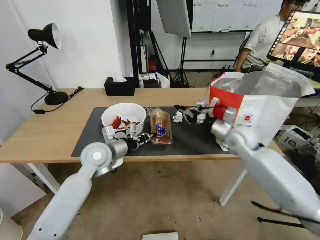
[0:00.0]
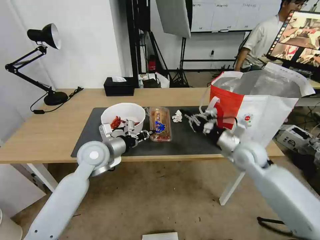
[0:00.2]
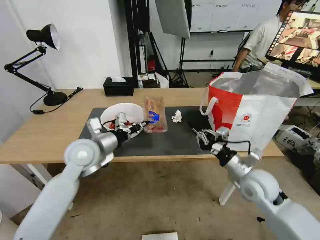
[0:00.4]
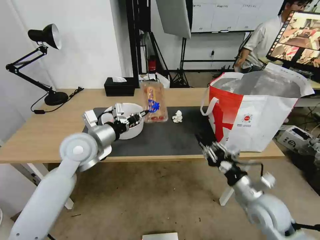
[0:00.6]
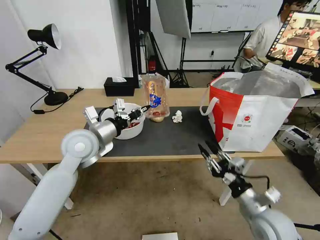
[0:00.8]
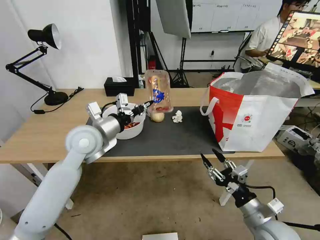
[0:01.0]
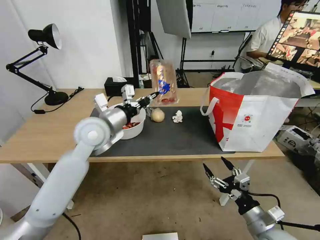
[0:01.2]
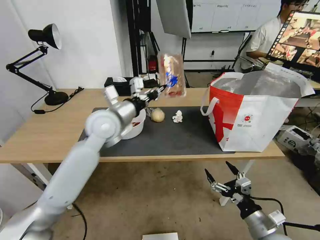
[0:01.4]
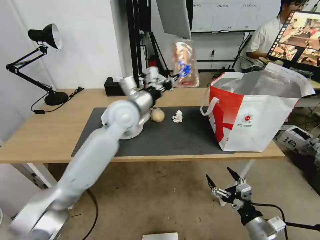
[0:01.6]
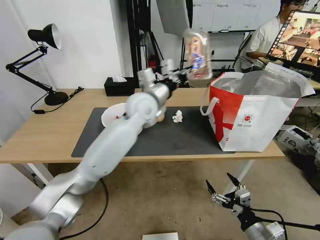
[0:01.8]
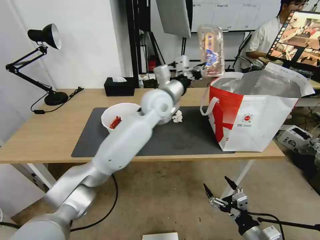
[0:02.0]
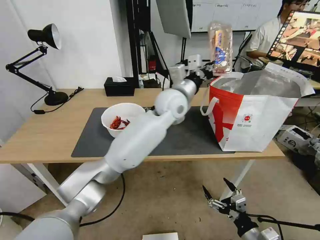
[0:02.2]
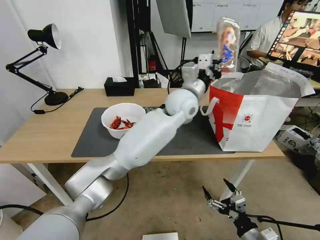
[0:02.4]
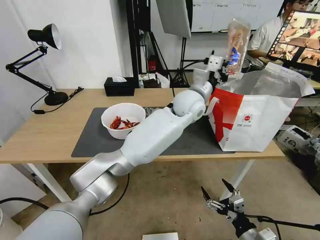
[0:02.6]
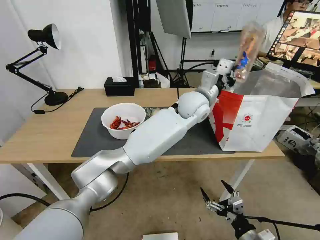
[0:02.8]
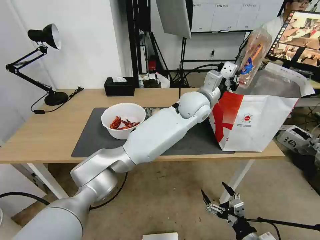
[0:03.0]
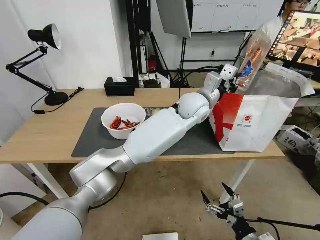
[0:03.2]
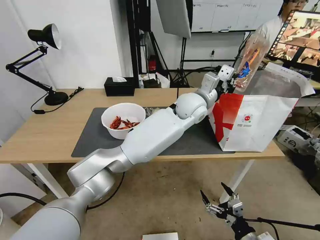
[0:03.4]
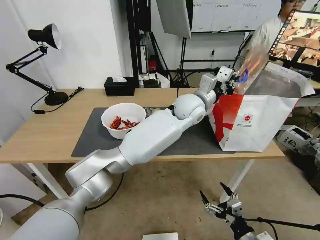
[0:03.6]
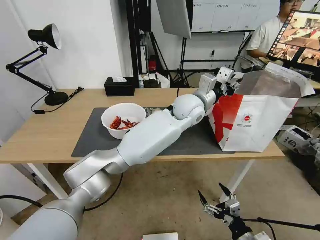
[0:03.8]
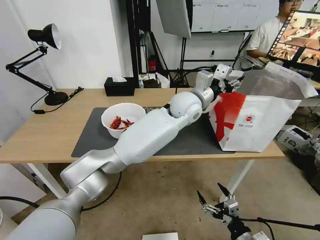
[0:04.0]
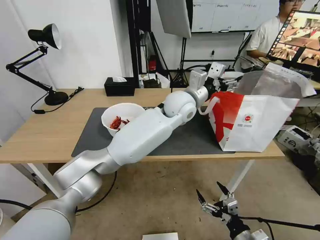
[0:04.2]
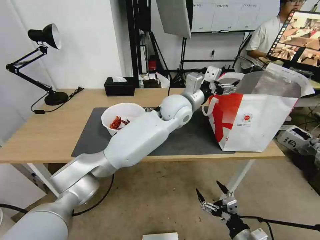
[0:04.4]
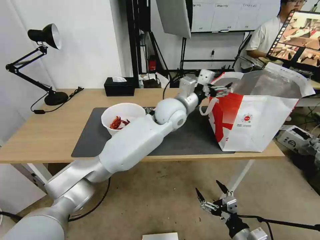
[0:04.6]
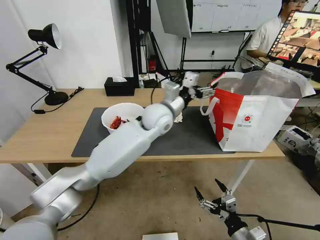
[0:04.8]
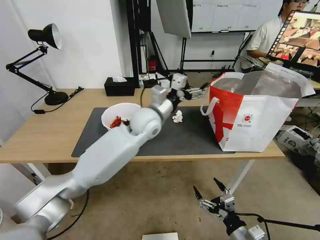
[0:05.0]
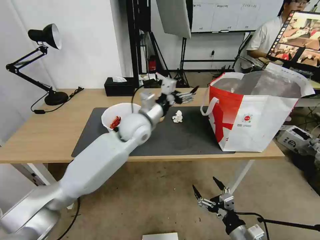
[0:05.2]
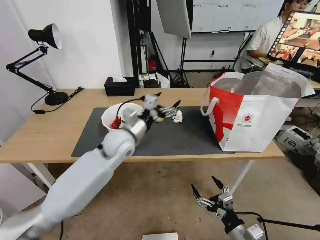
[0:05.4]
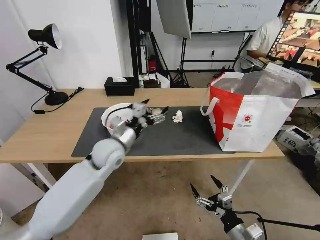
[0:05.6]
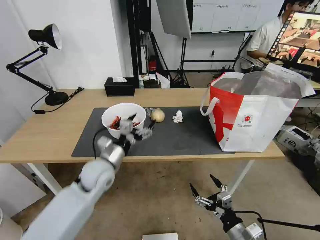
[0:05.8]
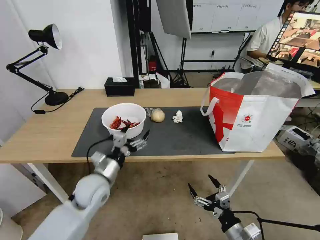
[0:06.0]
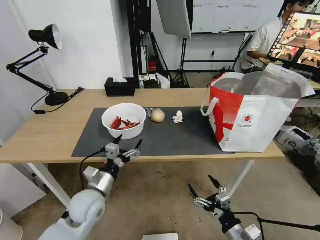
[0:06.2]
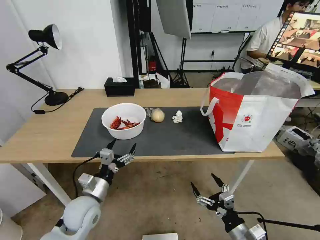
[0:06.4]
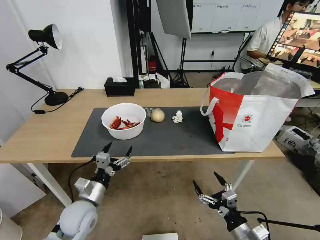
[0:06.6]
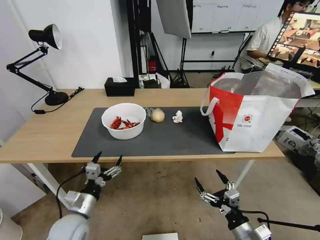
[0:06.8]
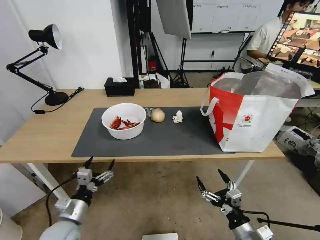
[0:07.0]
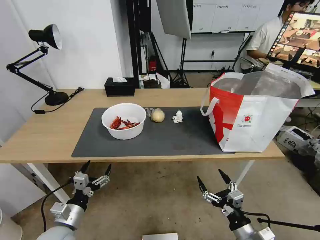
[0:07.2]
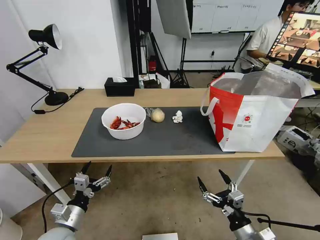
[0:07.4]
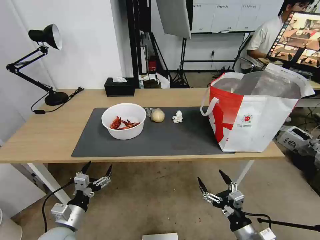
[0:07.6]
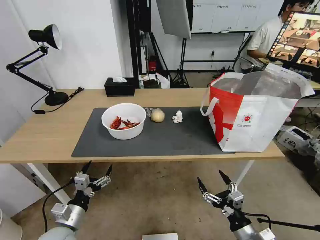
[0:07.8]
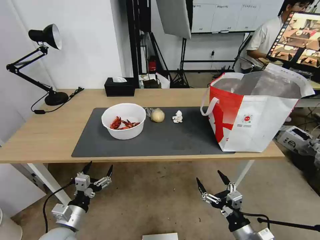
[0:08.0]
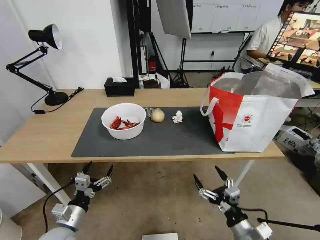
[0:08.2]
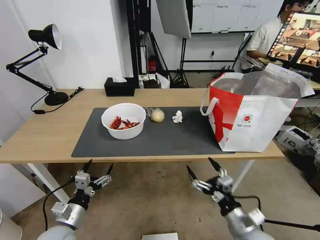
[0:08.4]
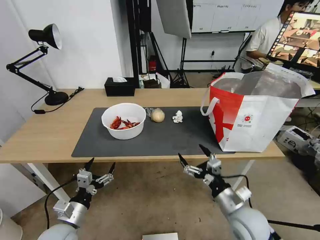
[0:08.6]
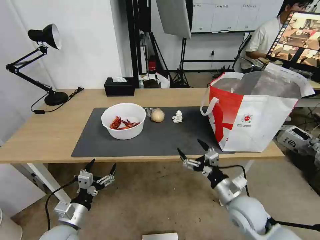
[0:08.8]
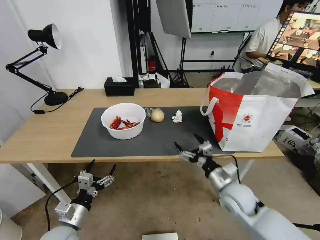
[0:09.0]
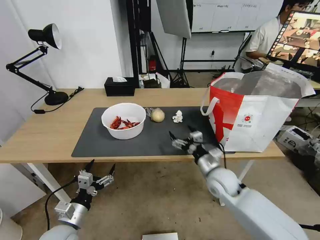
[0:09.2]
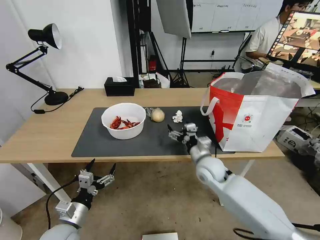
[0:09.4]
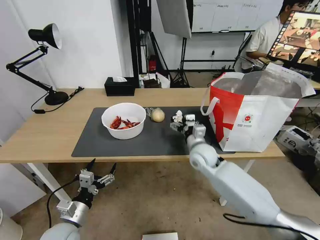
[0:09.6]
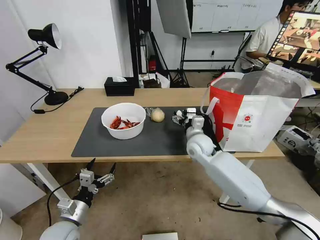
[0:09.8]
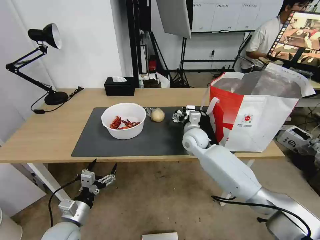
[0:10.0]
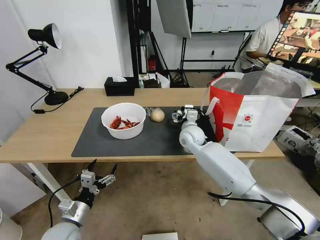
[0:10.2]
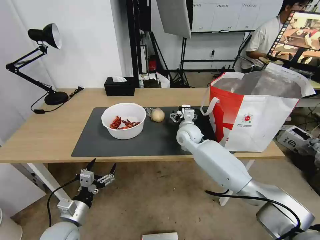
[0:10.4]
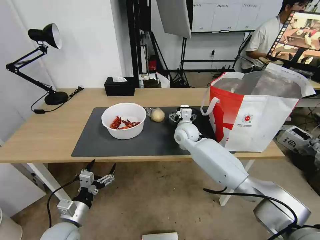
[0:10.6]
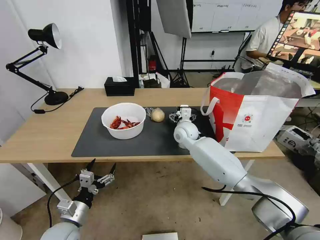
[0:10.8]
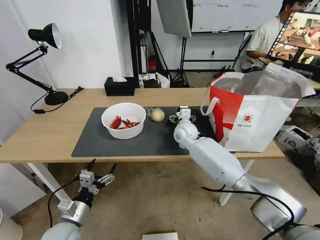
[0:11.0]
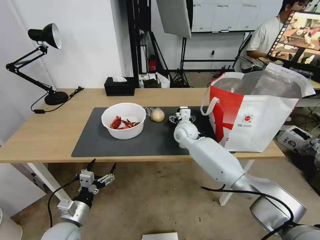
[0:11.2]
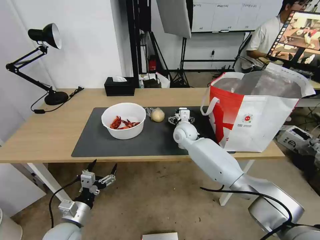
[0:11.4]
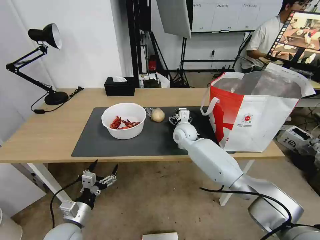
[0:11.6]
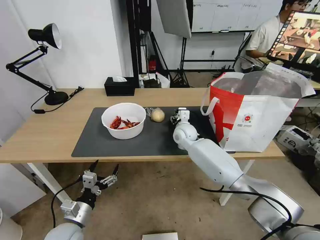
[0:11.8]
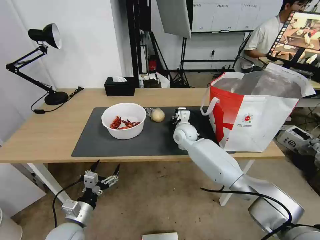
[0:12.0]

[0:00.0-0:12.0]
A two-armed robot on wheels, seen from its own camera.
Task of the whole recording: Pick up the trash from the table and place it into the takeout bag.
0:00.0 to 0:01.6: The left gripper heads upward, to the right and forward, covering approximately 15 cm; the right gripper travels backward and downward by some 35 cm, and opens its fingers.
0:01.6 to 0:03.0: The left gripper shifts about 20 cm to the right.
0:03.0 to 0:04.4: The left gripper shifts about 5 cm to the left, and opens its fingers.
0:04.4 to 0:06.0: The left gripper moves to the left, backward and downward, about 35 cm.
0:06.0 to 0:07.6: The left gripper heads backward, to the left and downward, covering some 20 cm.
0:07.6 to 0:09.0: The right gripper moves forward, approximately 15 cm.
0:09.0 to 0:10.4: The right gripper heads forward and to the left, covering some 25 cm.
0:10.4 to 0:12.0: The right gripper closes.

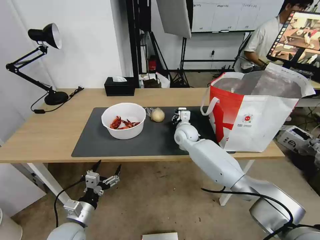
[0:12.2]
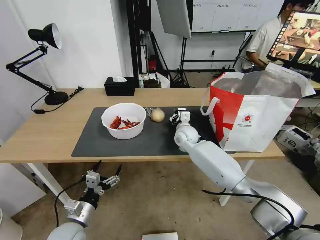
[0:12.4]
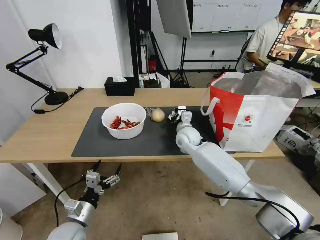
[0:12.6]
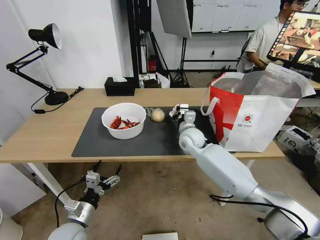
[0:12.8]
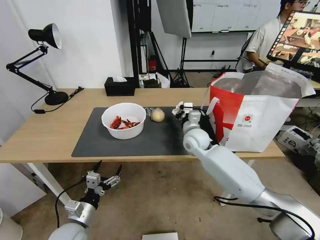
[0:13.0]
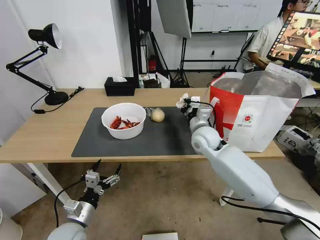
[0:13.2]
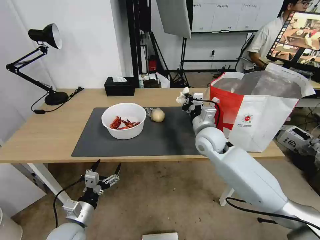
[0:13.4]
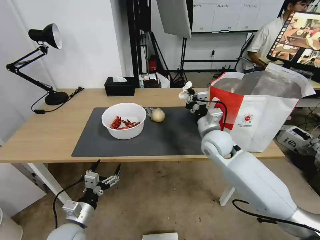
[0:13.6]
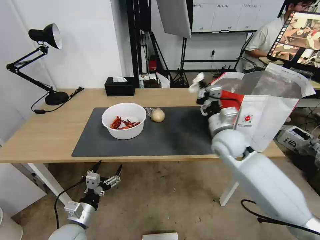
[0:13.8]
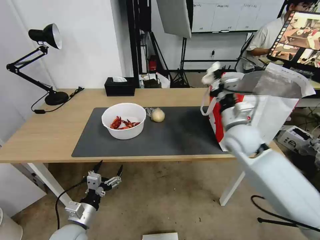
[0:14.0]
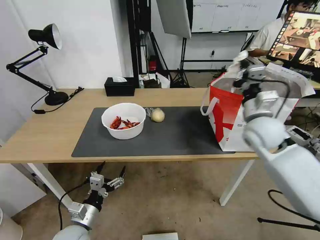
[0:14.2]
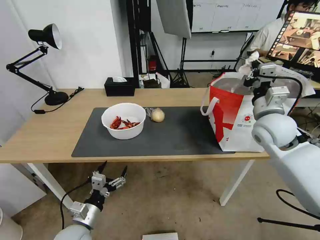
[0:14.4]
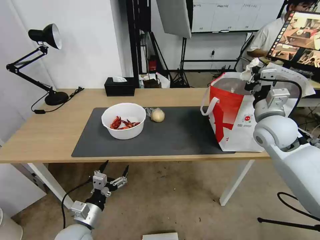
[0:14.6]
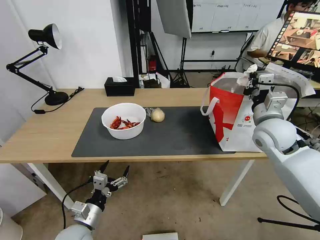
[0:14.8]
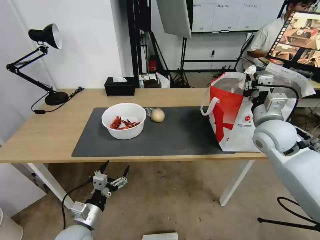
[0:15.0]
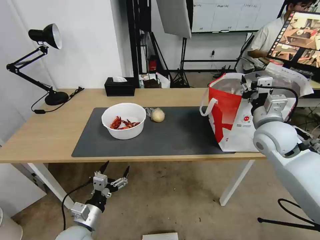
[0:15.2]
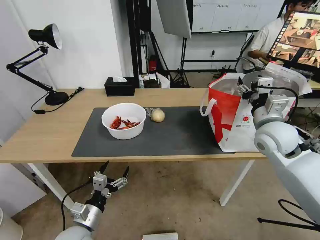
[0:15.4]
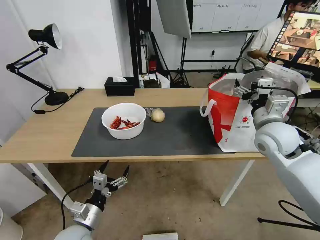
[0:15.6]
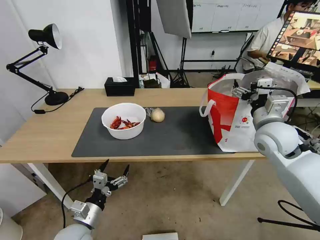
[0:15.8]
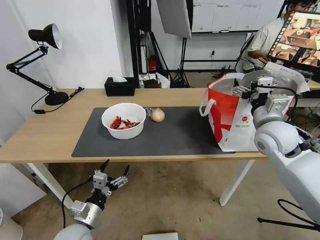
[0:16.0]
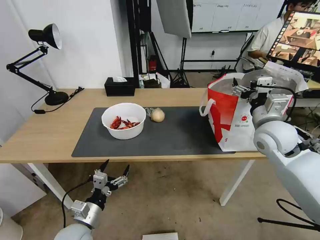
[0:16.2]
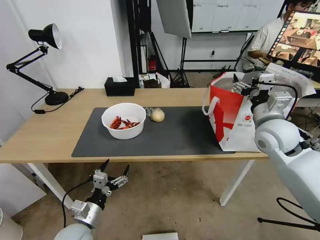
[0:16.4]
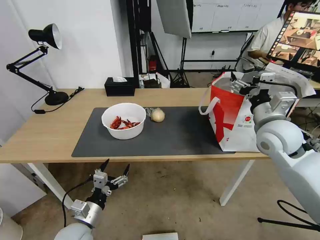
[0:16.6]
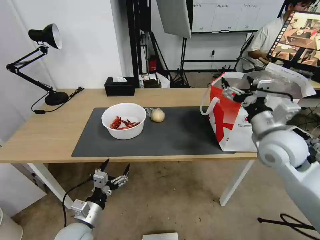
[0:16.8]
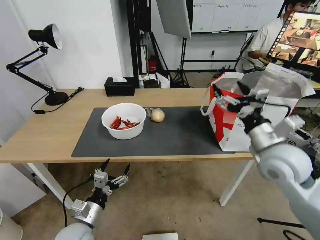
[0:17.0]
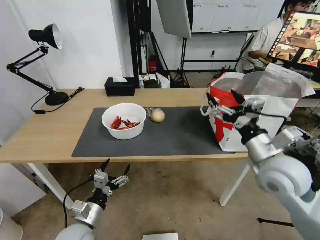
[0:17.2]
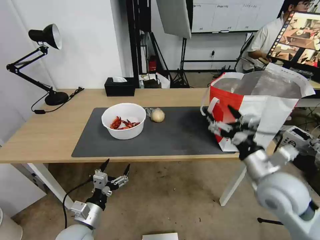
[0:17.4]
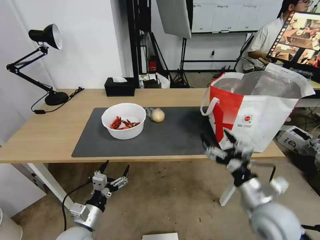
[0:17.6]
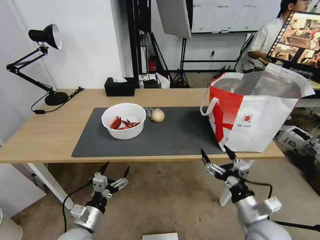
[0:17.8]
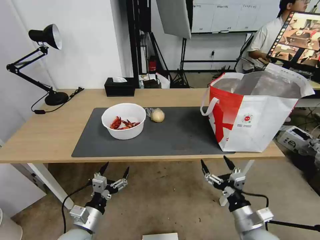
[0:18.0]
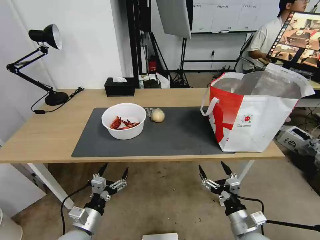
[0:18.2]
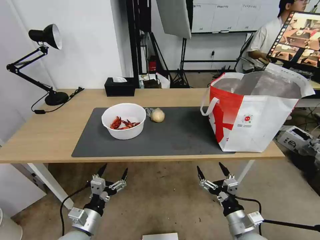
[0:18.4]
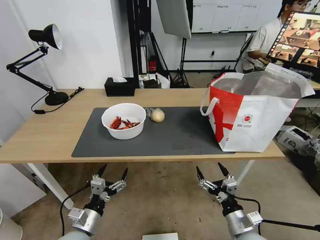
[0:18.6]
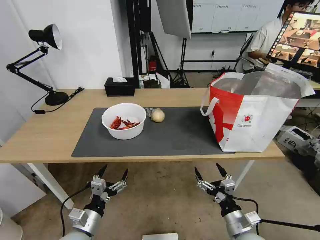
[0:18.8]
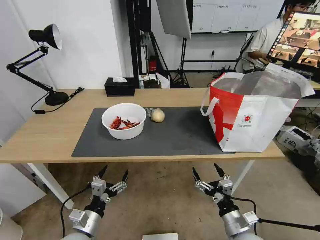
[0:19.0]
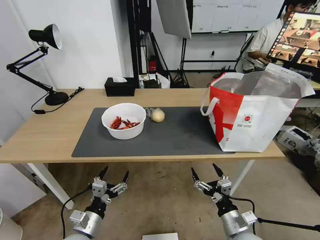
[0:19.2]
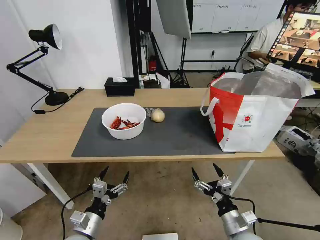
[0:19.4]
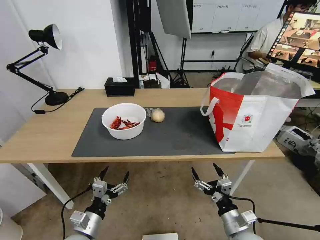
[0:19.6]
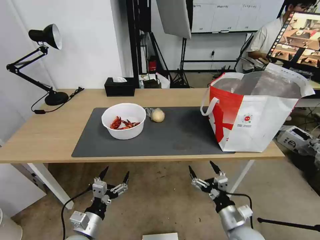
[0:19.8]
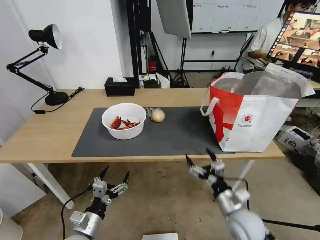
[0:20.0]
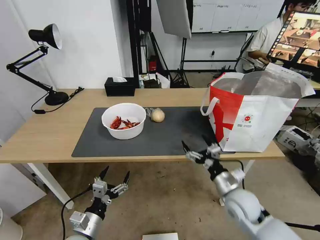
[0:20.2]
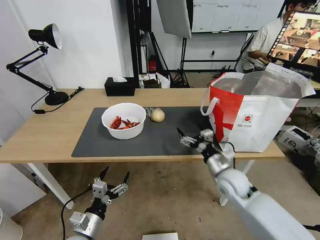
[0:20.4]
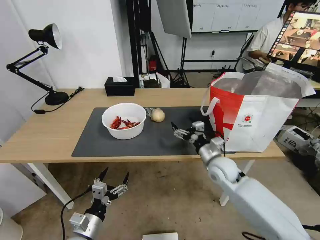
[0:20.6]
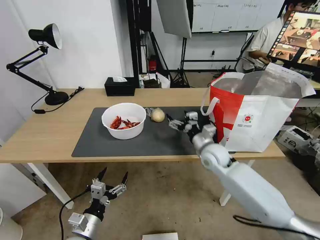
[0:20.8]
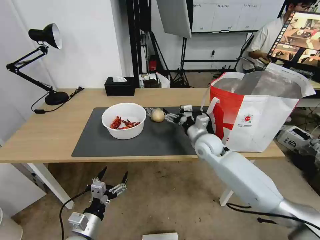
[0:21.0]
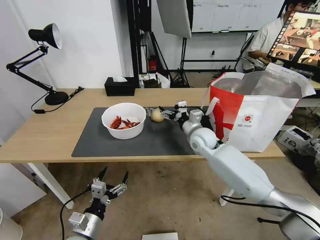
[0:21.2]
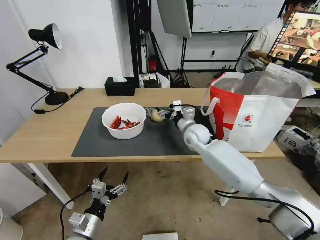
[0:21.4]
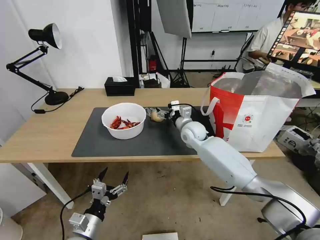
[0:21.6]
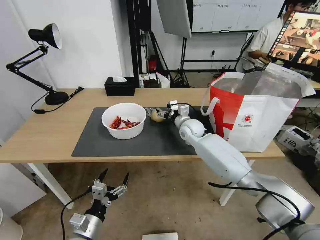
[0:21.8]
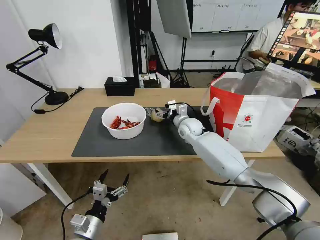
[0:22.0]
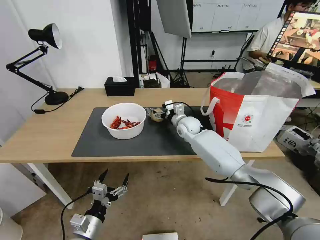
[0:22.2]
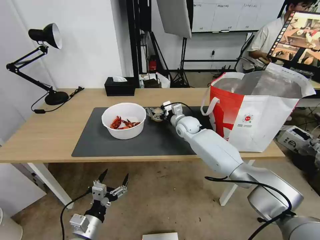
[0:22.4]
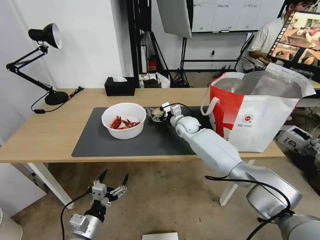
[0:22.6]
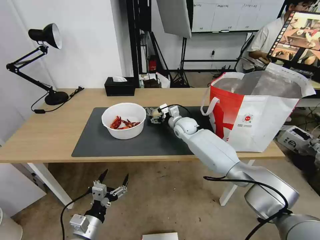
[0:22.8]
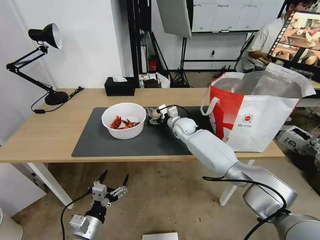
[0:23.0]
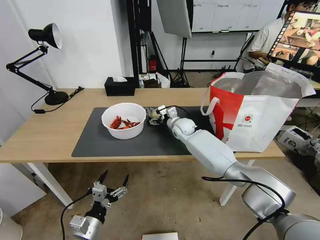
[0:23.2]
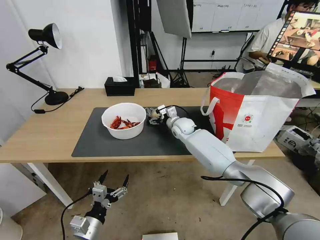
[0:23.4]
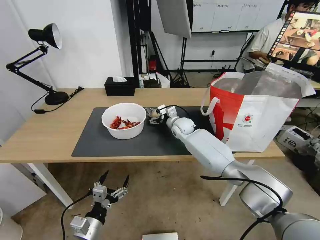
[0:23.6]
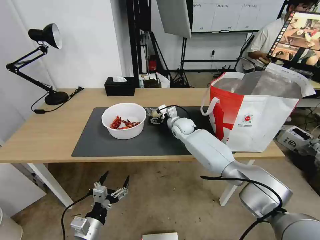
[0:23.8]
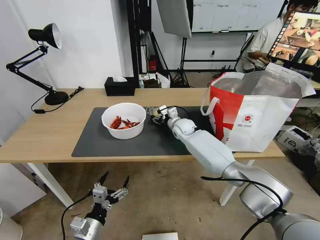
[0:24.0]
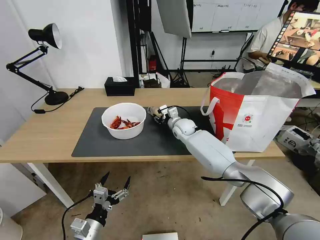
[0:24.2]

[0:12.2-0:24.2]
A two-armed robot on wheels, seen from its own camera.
Task of the whole recording: Pick up the trash from the table and place it into the takeout bag.
0:12.2 to 0:13.8: The right gripper shifts some 20 cm backward, to the right and upward.
0:13.8 to 0:15.2: The right gripper travels to the right and upward by roughly 10 cm, and opens its fingers.
0:15.2 to 0:16.6: The right gripper opens.
0:16.6 to 0:18.2: The right gripper moves downward and backward, roughly 35 cm.
0:18.2 to 0:19.8: The grippers move only a little.
0:19.8 to 0:21.2: The right gripper goes roughly 35 cm forward and upward.
0:21.2 to 0:22.6: The right gripper travels forward by about 10 cm.
0:22.6 to 0:24.2: The right gripper closes.
